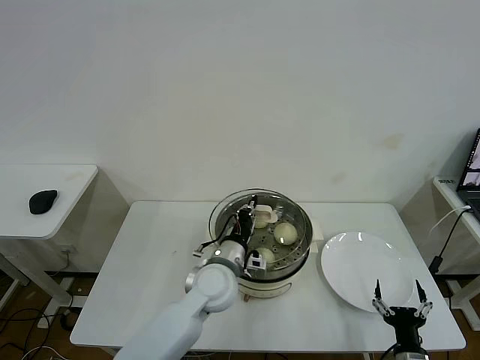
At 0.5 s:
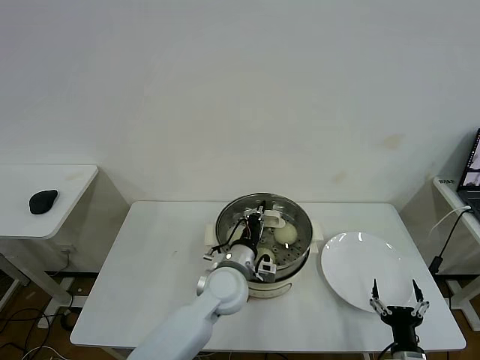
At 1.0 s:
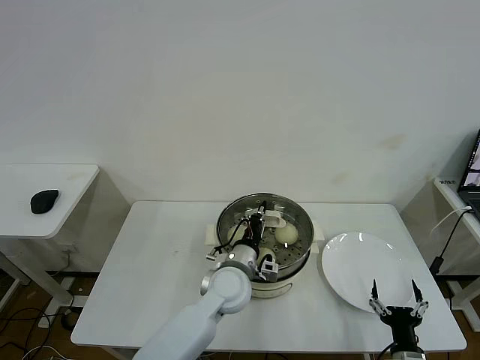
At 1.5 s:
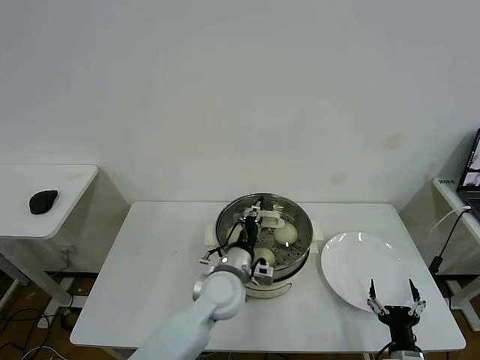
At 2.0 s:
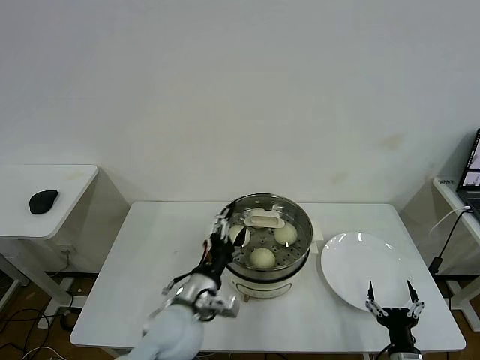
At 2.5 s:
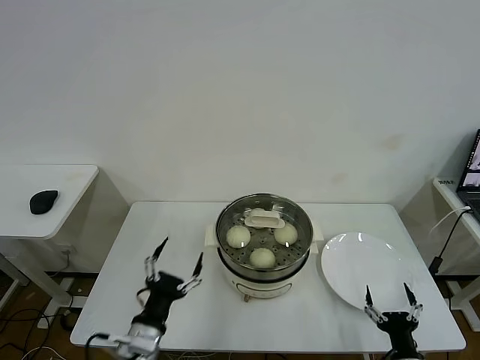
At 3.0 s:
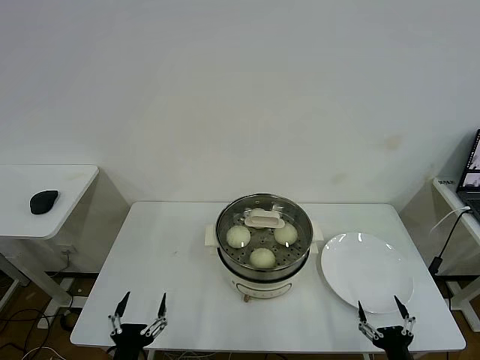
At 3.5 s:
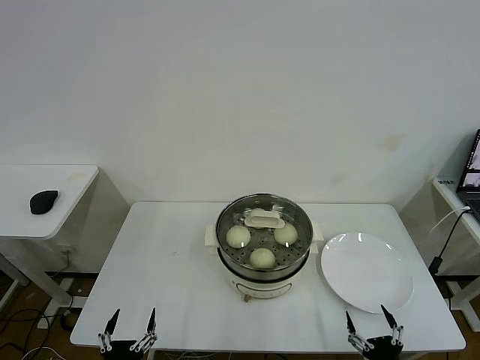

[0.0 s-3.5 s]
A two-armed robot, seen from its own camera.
Task of the whole recording: take steamed baozi put them in steamer then cover it.
0.0 to 2.0 s: The left gripper heads backward, covering some 10 cm, and opens up.
2.0 to 3.5 s: The right gripper moves backward, approximately 5 cm, while the left gripper shifts some 30 cm backward, to the left and downward.

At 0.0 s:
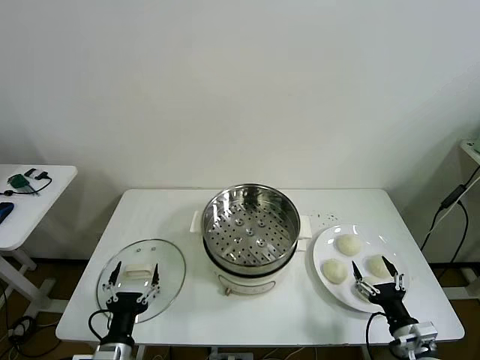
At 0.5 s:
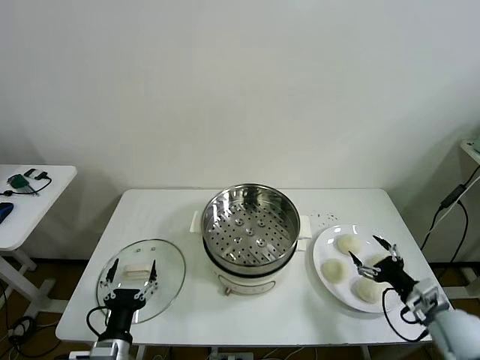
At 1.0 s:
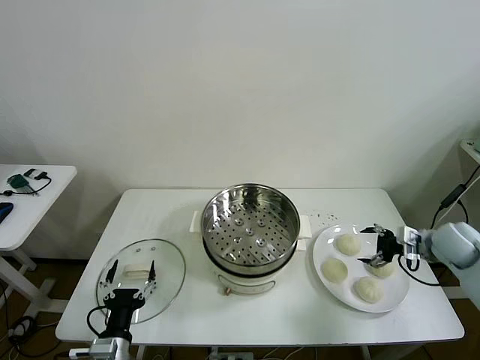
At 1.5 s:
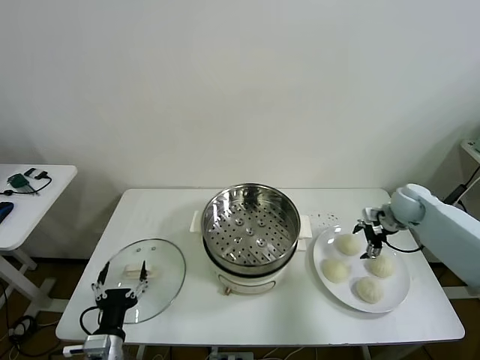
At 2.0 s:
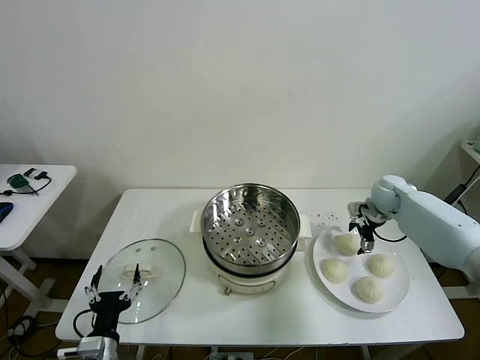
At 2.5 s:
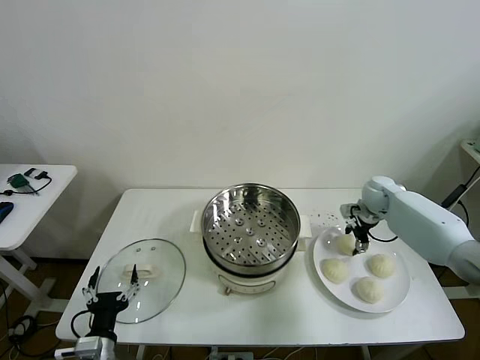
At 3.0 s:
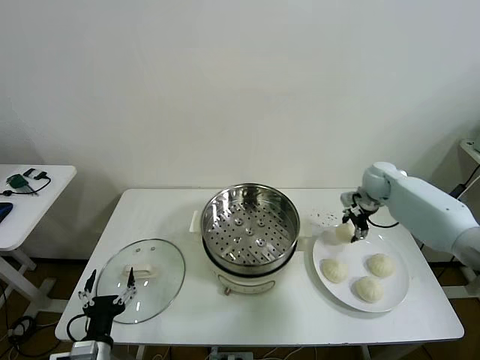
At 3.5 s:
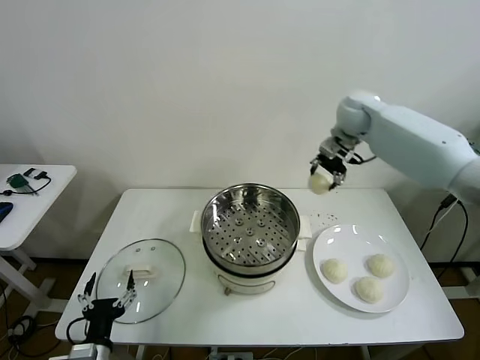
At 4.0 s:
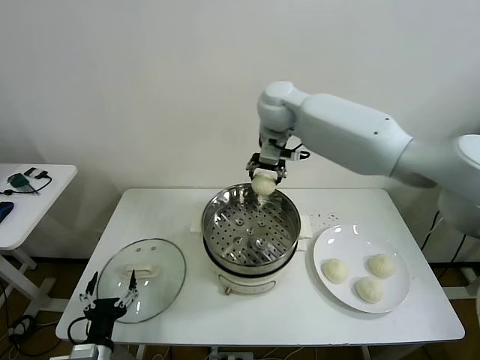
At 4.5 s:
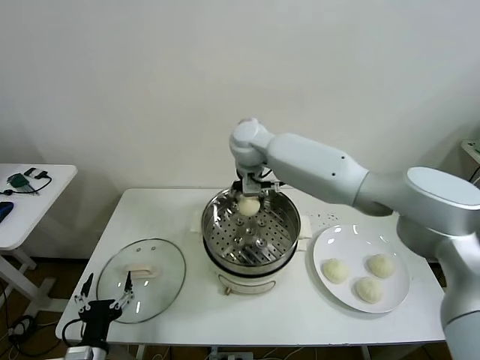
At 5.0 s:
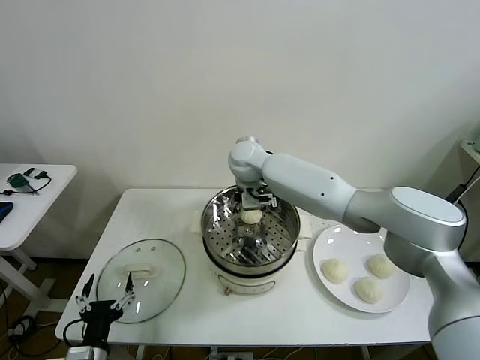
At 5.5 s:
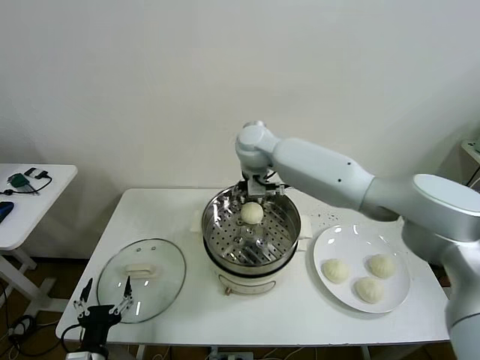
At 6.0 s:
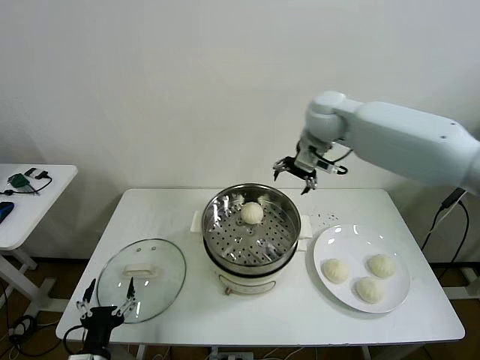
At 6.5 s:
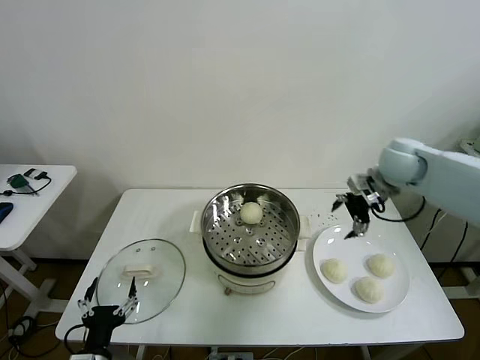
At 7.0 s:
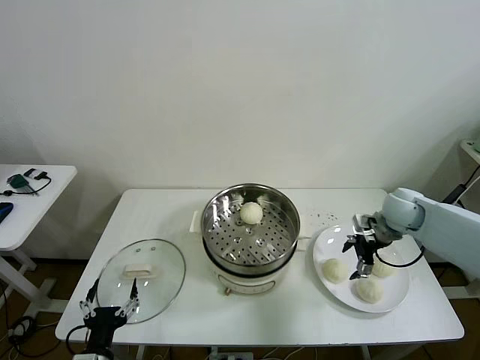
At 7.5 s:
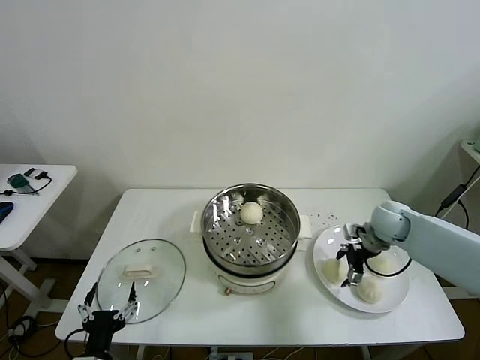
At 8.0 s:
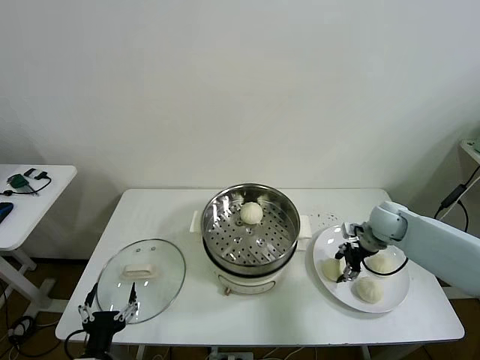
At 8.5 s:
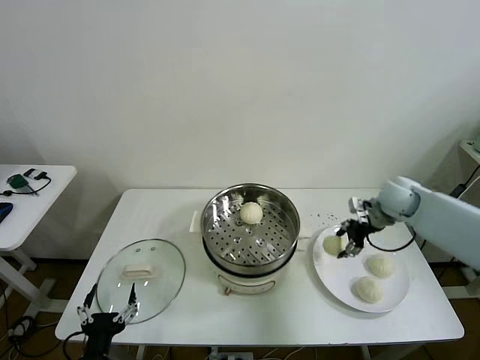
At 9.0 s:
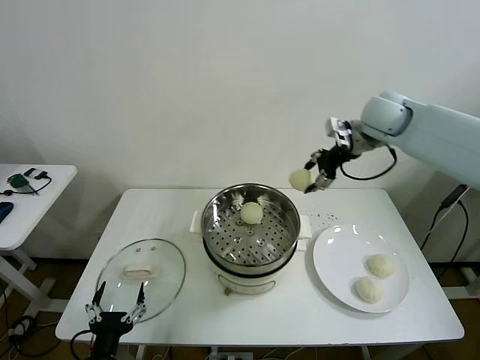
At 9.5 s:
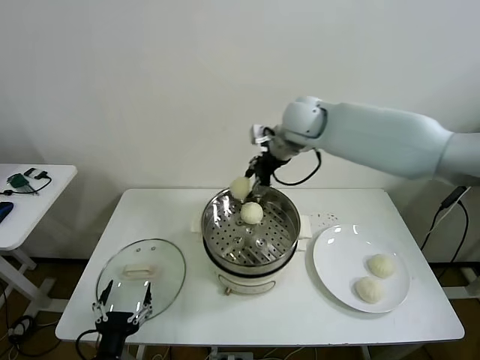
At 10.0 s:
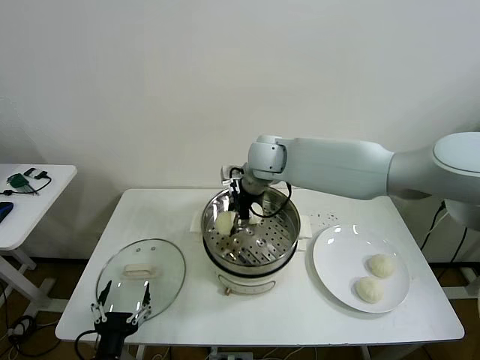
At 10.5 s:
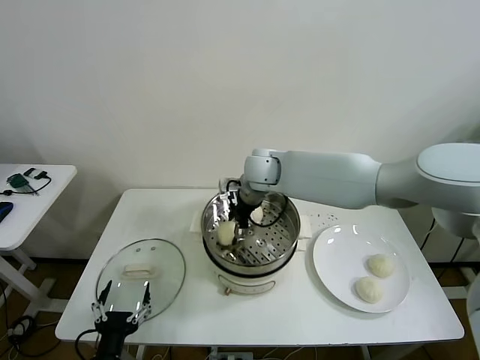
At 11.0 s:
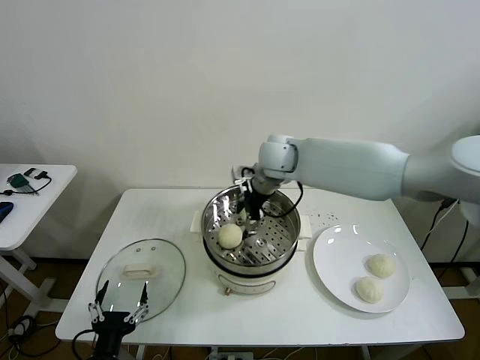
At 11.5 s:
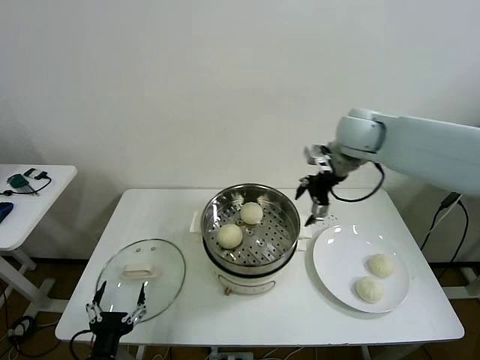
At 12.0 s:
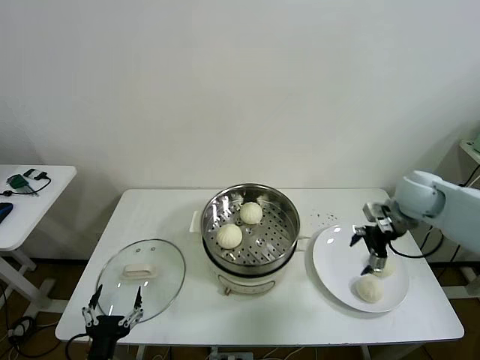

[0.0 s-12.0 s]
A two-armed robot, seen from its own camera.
Task of the whole recording: take steamed baozi put them in steamer then cover it.
Step, 0.0 to 2.5 s: Grasp the baozi in the plate with right gripper.
Step, 3.0 to 5.0 s: Place the baozi on the steamer with right gripper.
Step, 5.5 to 8.0 s: Grasp the baozi in the plate with right gripper.
Step, 8.5 to 10.5 s: Place the baozi on the steamer with right gripper.
2.0 to 4.0 s: The right gripper is displaced to the left and upward by some 40 cm, and closes.
4.0 to 6.0 s: The right gripper moves to the right, about 20 cm, and opens up.
6.0 to 8.0 s: The right gripper shifts about 25 cm downward and to the right, and closes up.
8.0 to 10.0 s: The right gripper is displaced to the left and upward by approximately 35 cm.
10.0 to 12.0 s: The right gripper travels to the right by about 35 cm, and opens.

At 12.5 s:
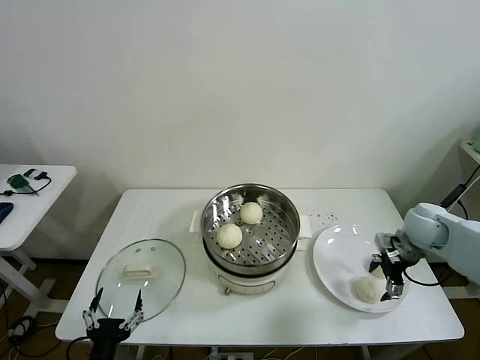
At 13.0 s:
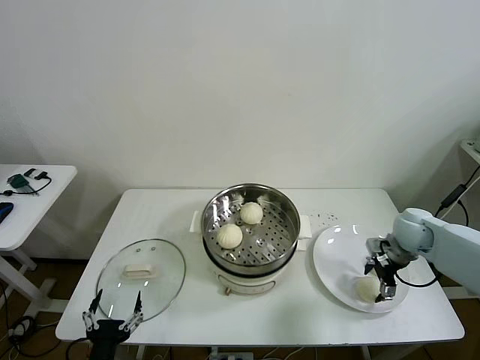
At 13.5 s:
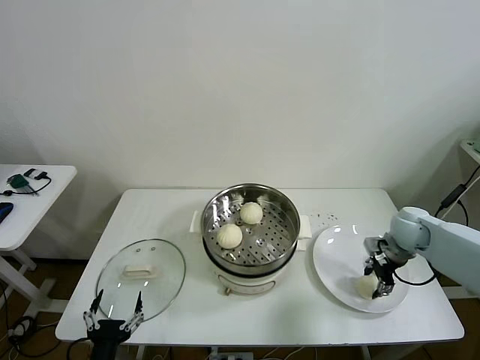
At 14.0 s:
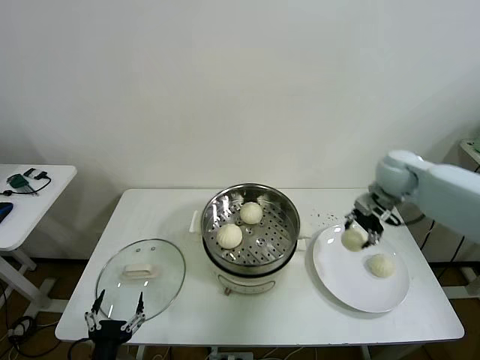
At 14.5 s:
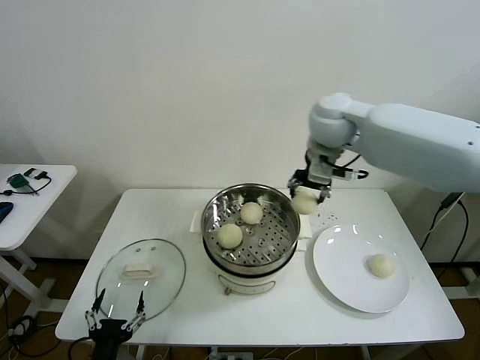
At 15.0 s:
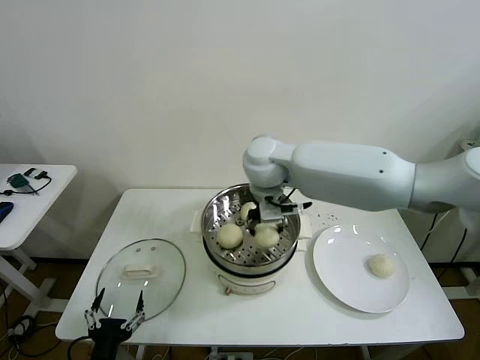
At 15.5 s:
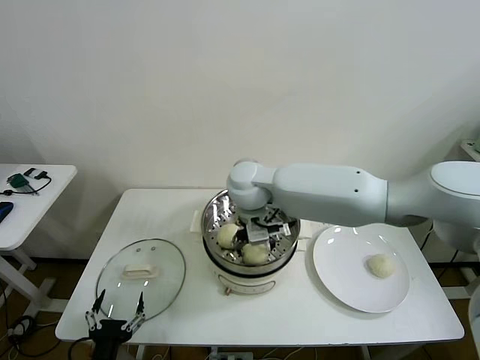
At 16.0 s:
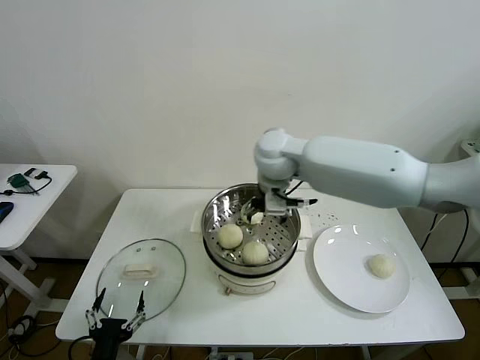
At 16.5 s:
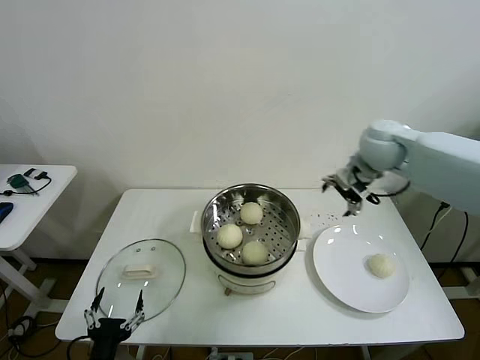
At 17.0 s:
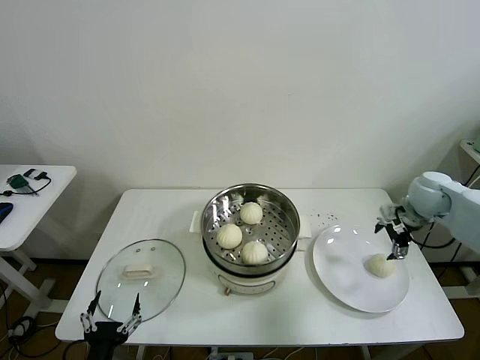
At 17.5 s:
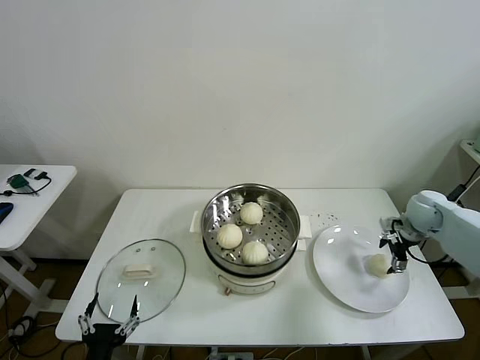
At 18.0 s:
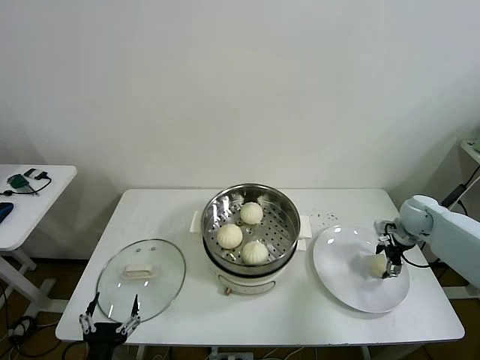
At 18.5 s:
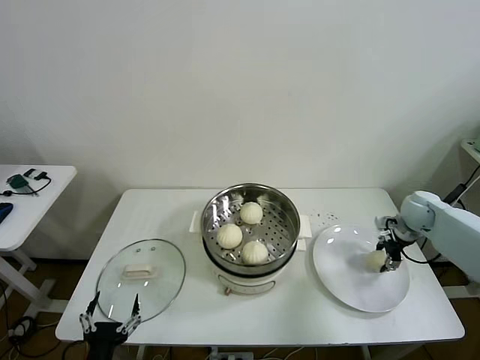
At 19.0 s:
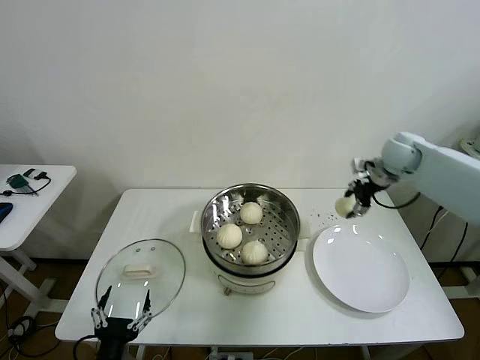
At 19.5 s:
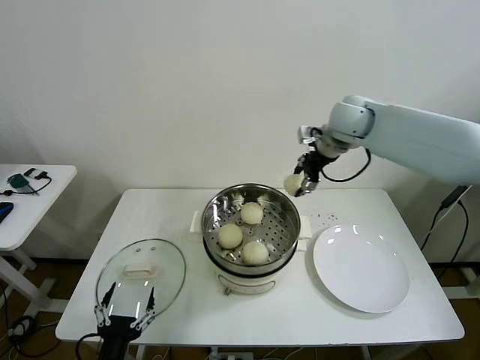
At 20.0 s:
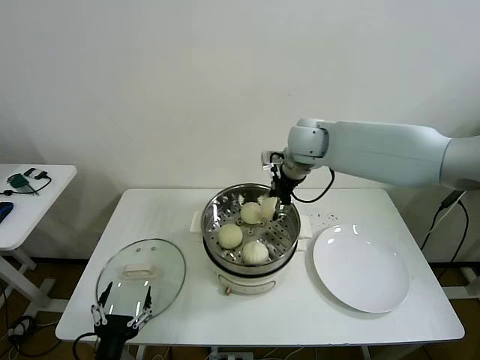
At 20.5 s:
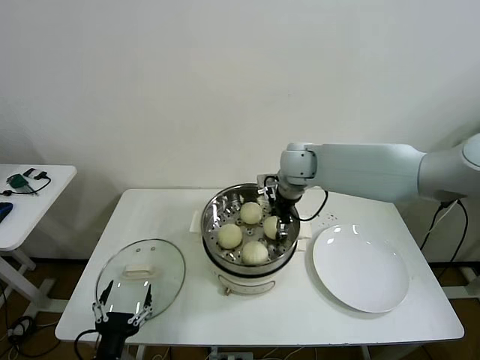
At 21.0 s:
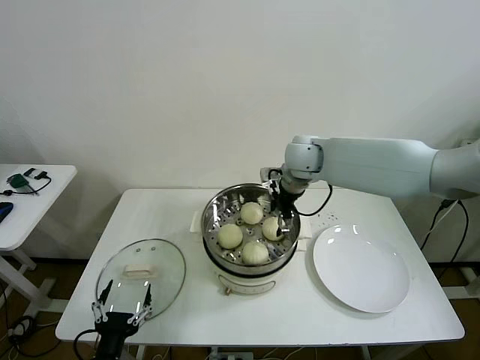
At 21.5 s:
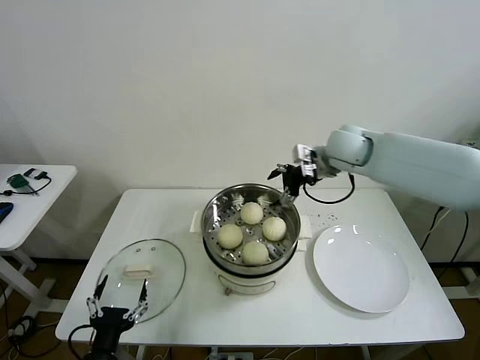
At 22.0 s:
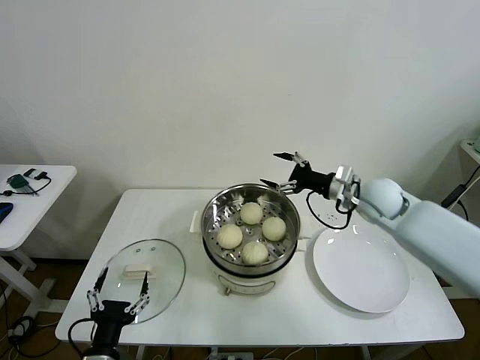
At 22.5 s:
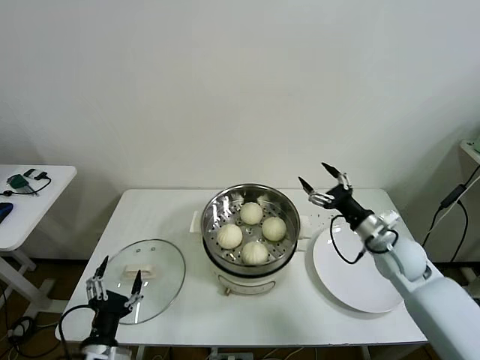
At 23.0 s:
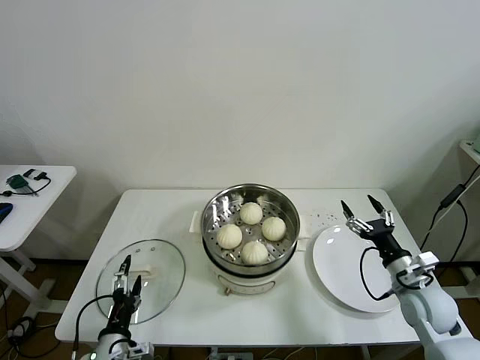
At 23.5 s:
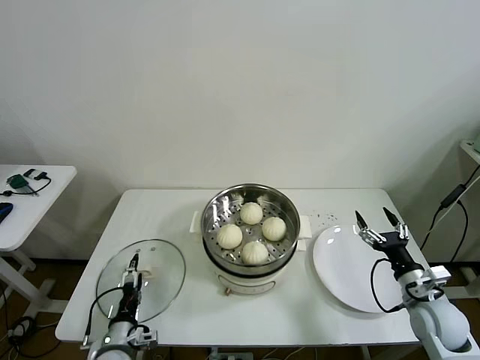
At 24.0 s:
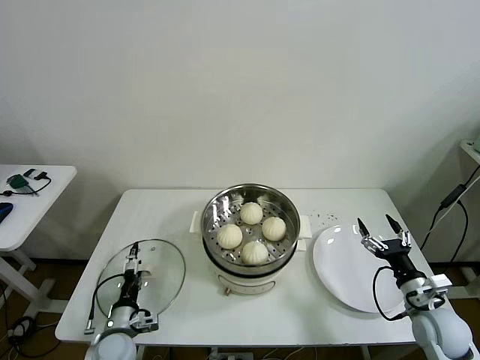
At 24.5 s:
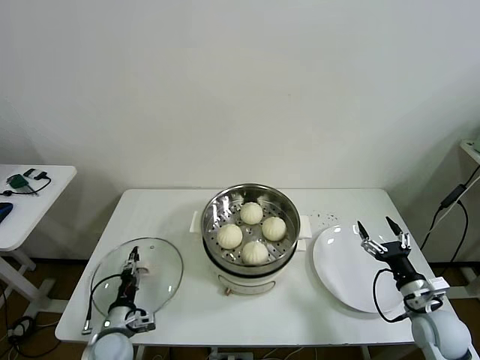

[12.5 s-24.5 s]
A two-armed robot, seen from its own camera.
Task of the whole recording: take steamed baozi put them in steamer then cover it.
Step, 13.5 to 15.5 s: Place the baozi on the steamer with right gripper.
Step, 16.0 to 18.0 s: Grasp the baozi in the plate with right gripper.
Step, 18.5 to 20.5 s: Place the baozi on the steamer with right gripper.
12.5 to 14.5 s: The right gripper heads to the left and upward, covering about 35 cm, and closes its fingers.
14.5 to 16.5 s: The right gripper is displaced to the right by approximately 20 cm, and opens up.
16.5 to 18.5 s: The right gripper is displaced downward and to the right by some 20 cm, and closes.
18.5 to 20.5 s: The right gripper goes some 30 cm to the left.
20.5 to 22.5 s: The right gripper goes some 30 cm to the right, backward and downward, and opens up.
22.5 to 24.5 s: The right gripper is displaced backward, downward and to the right by approximately 15 cm. Meanwhile the left gripper goes some 15 cm downward and forward, and closes up.
